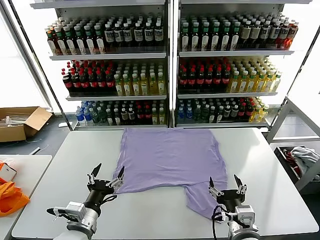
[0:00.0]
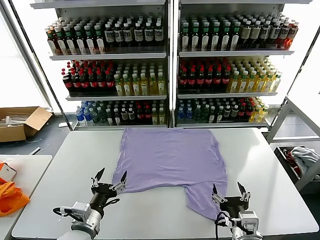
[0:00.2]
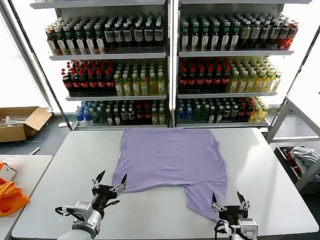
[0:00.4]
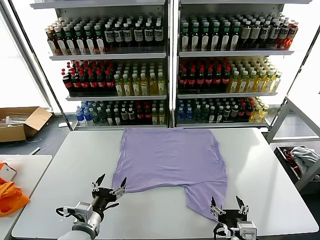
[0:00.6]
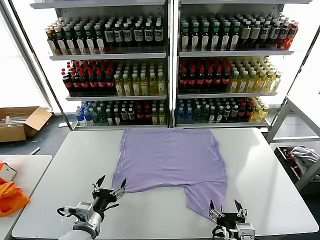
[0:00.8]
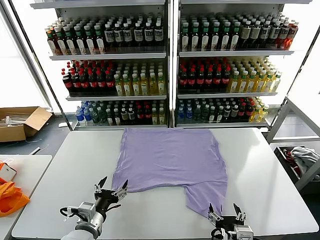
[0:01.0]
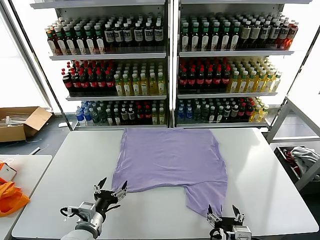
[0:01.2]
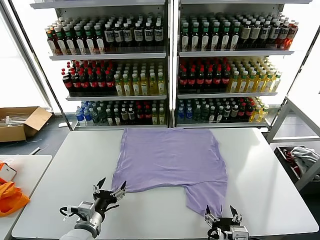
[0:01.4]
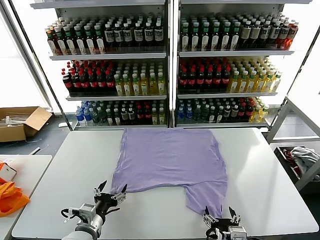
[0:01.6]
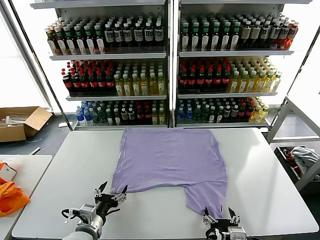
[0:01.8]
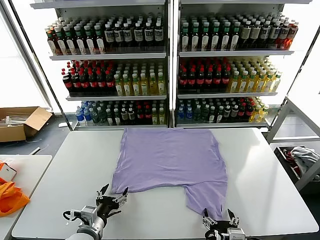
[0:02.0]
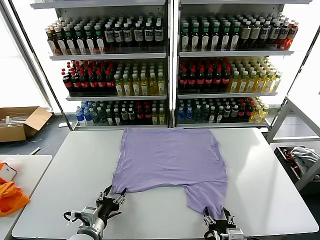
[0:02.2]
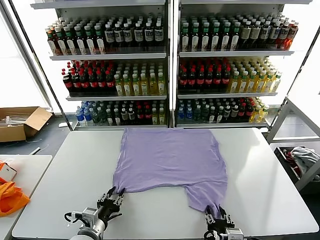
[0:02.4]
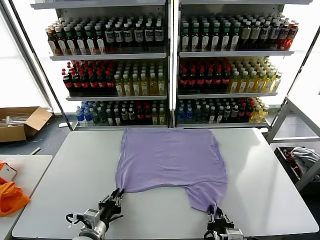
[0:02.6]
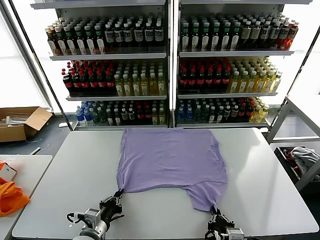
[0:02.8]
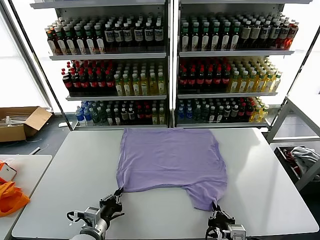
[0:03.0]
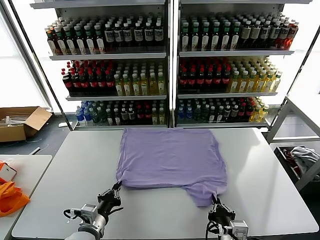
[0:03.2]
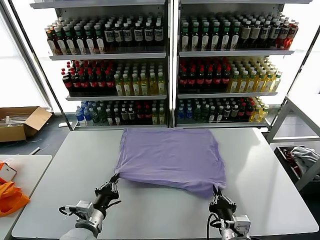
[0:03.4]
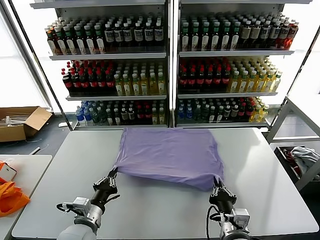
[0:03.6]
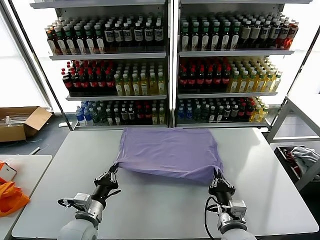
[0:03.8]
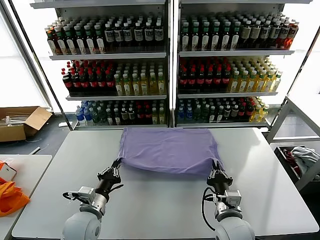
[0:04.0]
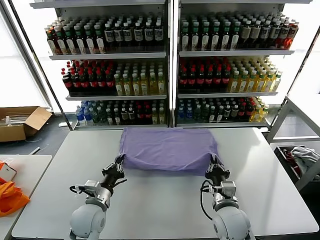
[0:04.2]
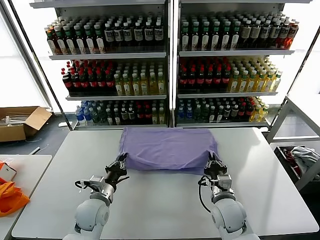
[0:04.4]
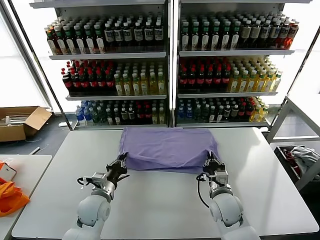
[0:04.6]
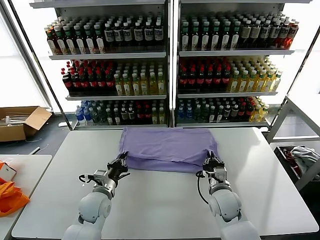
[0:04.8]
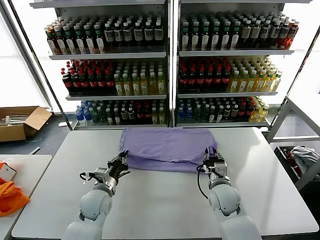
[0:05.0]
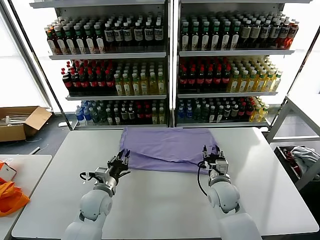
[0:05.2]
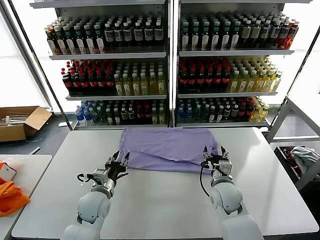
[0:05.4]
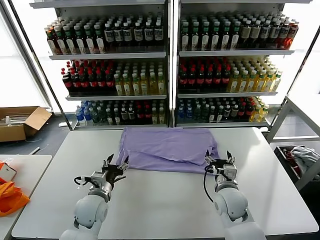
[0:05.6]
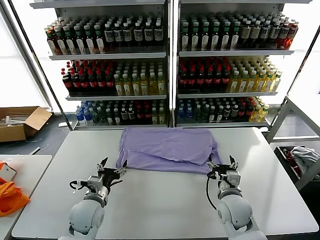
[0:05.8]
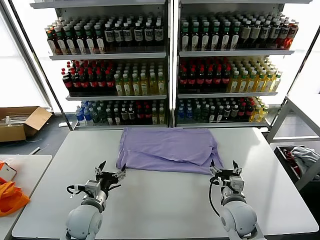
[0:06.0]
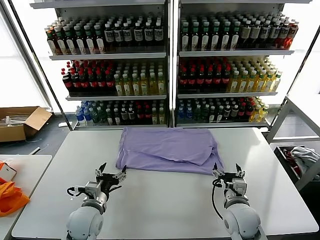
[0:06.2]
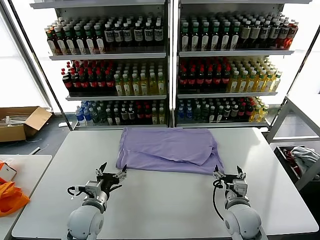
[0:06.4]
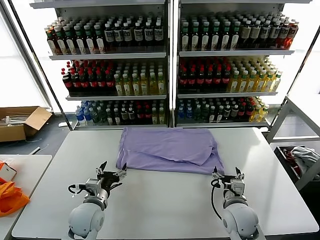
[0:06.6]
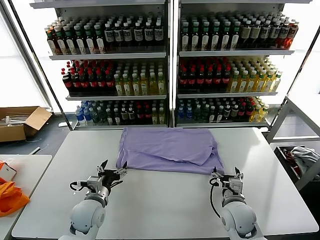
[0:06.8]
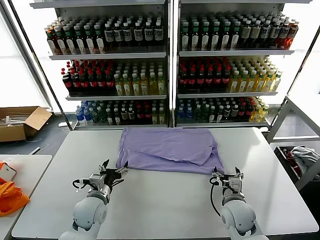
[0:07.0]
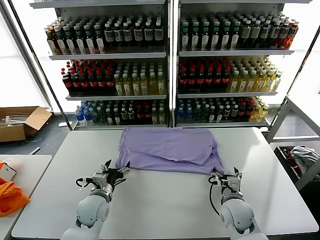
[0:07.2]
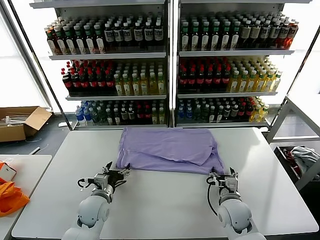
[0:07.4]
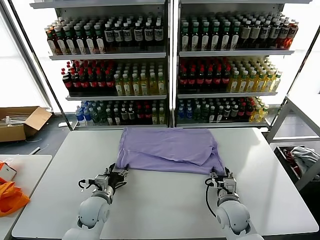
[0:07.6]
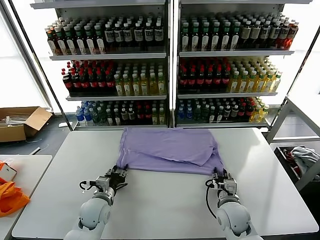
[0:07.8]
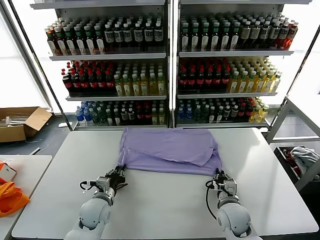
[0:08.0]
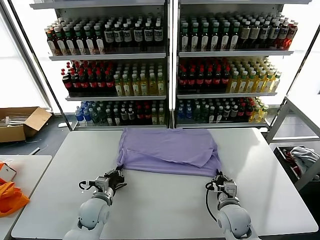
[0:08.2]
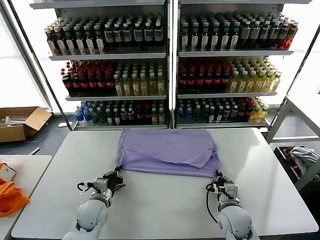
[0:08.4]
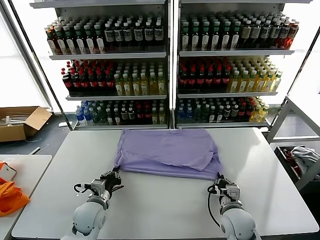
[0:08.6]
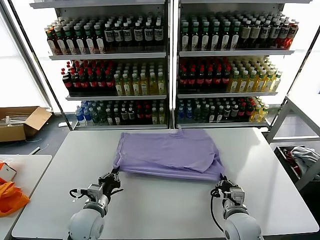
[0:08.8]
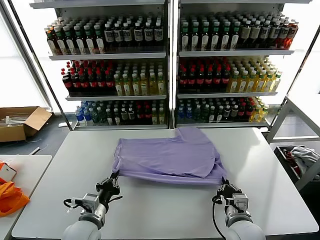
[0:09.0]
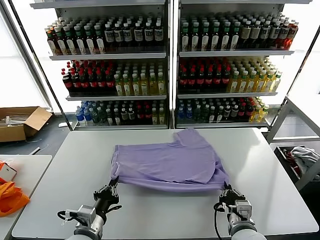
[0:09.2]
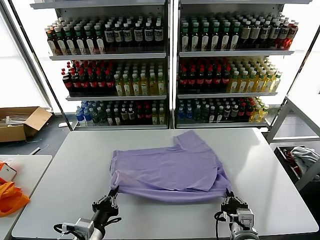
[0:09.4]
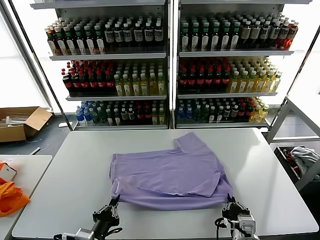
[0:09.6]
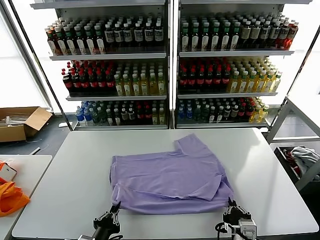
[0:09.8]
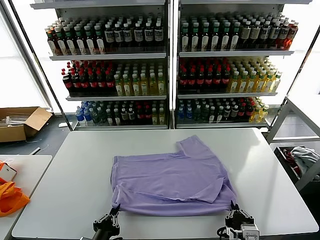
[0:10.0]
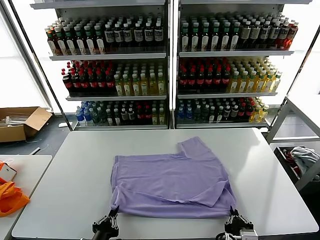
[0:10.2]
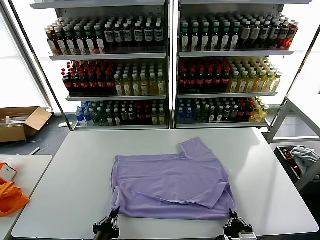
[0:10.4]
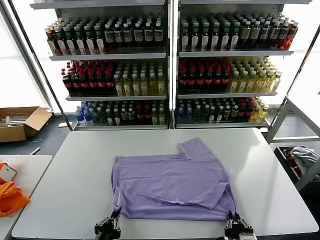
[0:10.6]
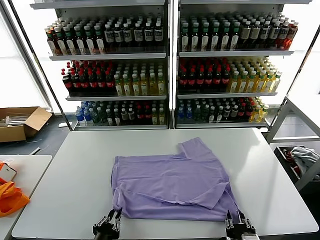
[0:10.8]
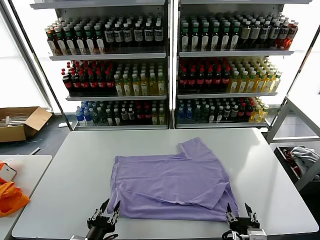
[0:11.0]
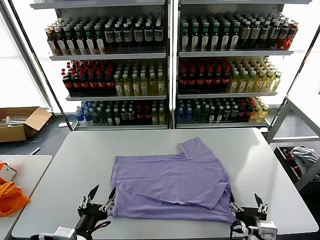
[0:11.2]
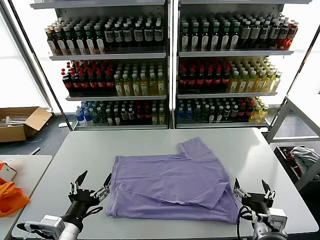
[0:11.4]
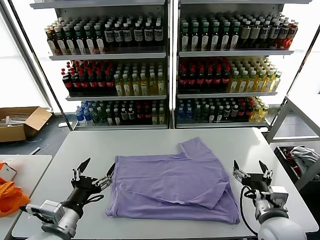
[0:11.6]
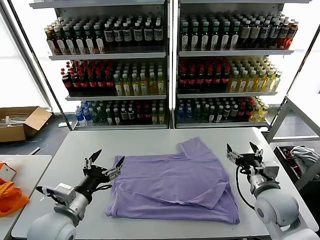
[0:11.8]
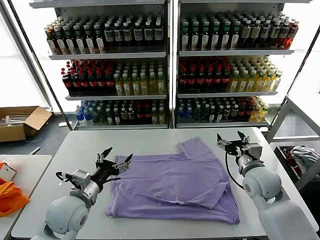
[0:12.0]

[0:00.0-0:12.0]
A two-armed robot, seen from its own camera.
Task of the whole recording: fold and organize the clothes.
Step, 0:00.0 to 0:03.0: use both grippers simultaneously to clamp the lower edge of the clothing fabric.
Step, 0:03.2 to 0:05.0: use both grippers to drag the lower edge of the fabric forward and fold it over the upper edge.
Step, 0:05.4 to 0:10.8: Drag the clothes downward with both gripper.
0:01.6 to 0:03.0: The right gripper closes its fingers; the left gripper closes its fingers.
0:03.0 to 0:04.4: The right gripper travels forward by approximately 15 cm; the left gripper is displaced forward by roughly 10 cm.
0:04.4 to 0:06.0: The right gripper opens its fingers, while the left gripper opens.
0:06.0 to 0:07.6: The left gripper moves some 5 cm, while the right gripper closes.
0:07.6 to 0:09.0: The right gripper goes about 10 cm backward, and closes up; the left gripper travels backward and upward by about 10 cm, and closes its fingers.
0:09.0 to 0:10.4: The two grippers go roughly 10 cm backward.
0:10.4 to 0:12.0: The left gripper goes roughly 20 cm forward and upward, and opens up. Meanwhile the right gripper shifts approximately 25 cm forward, and opens up.

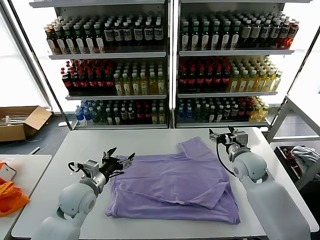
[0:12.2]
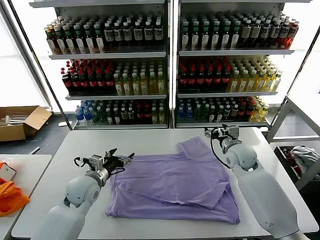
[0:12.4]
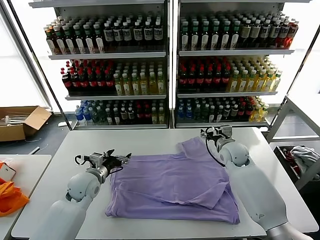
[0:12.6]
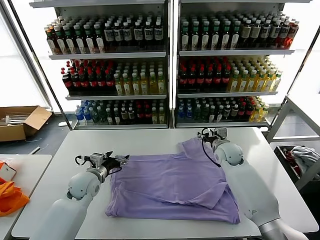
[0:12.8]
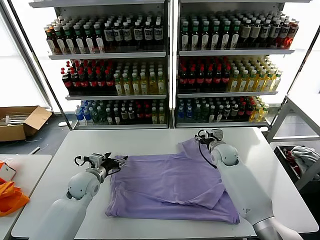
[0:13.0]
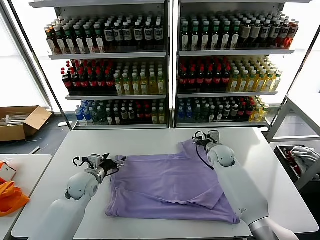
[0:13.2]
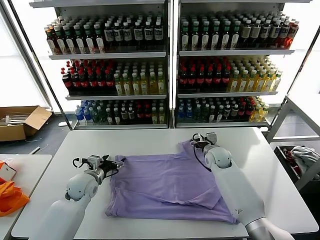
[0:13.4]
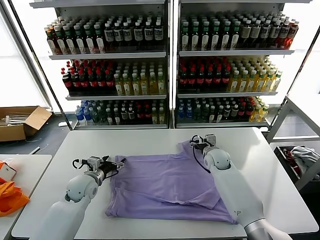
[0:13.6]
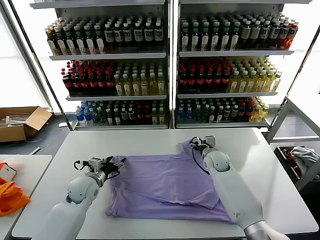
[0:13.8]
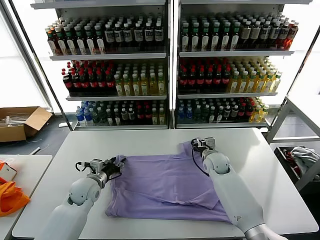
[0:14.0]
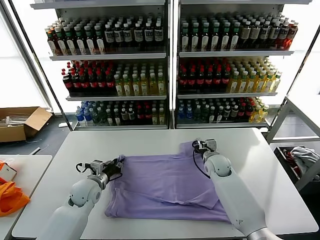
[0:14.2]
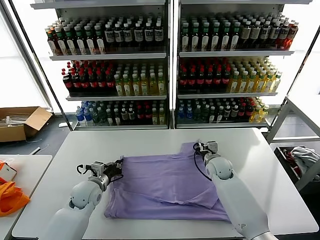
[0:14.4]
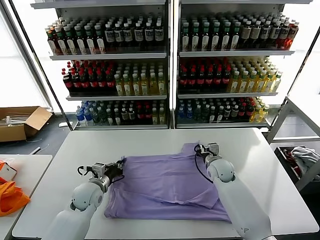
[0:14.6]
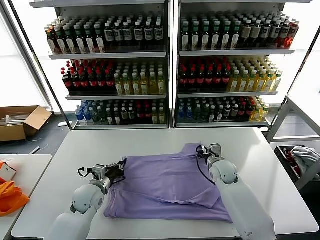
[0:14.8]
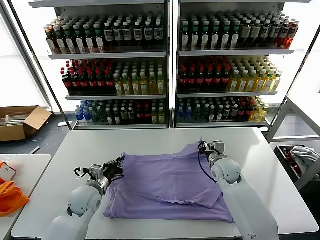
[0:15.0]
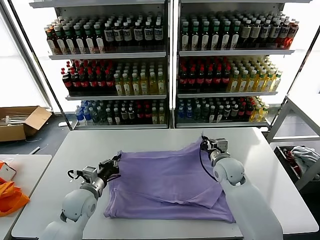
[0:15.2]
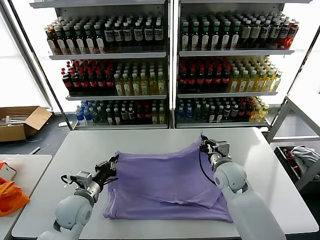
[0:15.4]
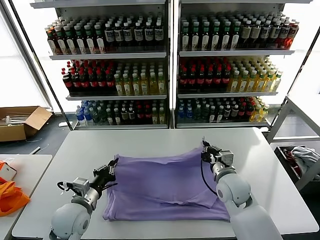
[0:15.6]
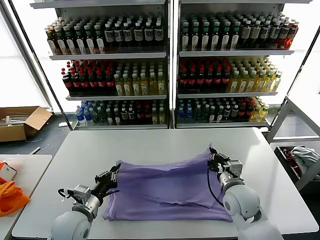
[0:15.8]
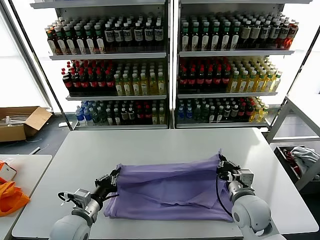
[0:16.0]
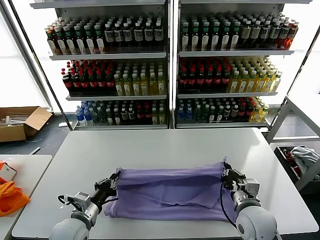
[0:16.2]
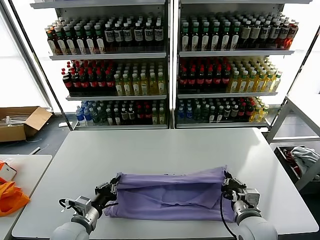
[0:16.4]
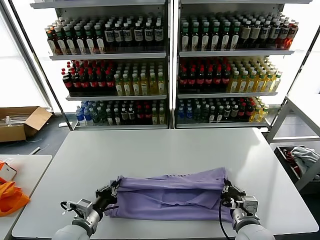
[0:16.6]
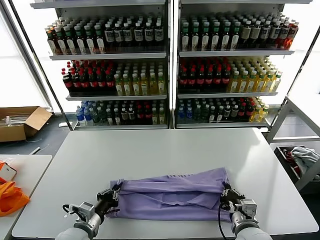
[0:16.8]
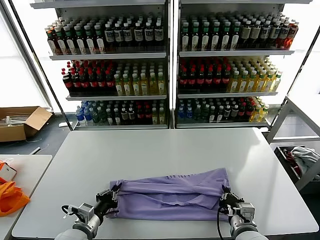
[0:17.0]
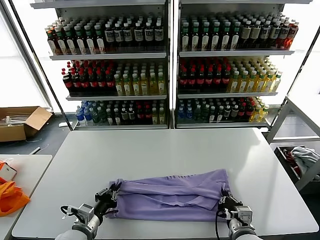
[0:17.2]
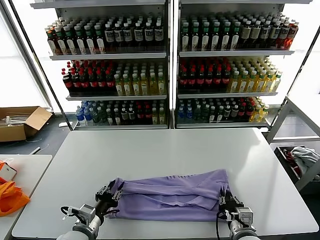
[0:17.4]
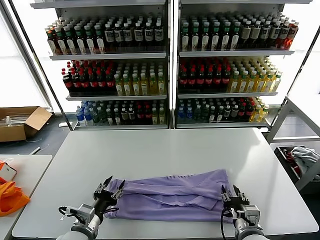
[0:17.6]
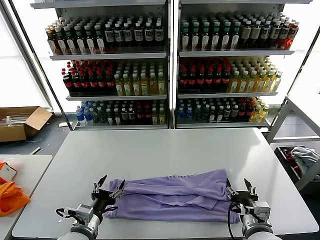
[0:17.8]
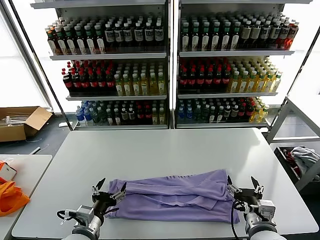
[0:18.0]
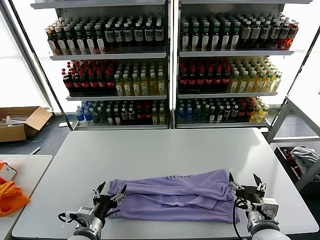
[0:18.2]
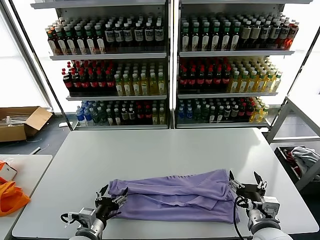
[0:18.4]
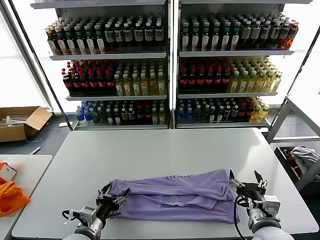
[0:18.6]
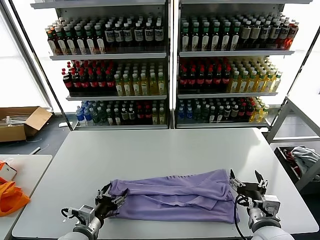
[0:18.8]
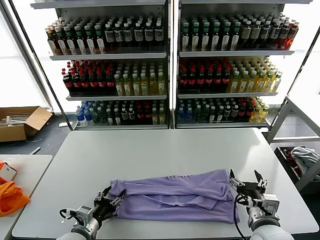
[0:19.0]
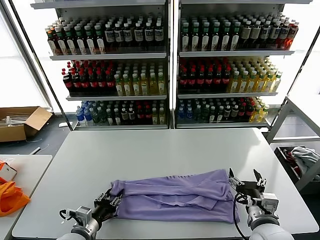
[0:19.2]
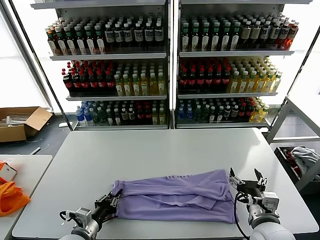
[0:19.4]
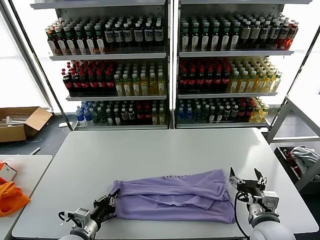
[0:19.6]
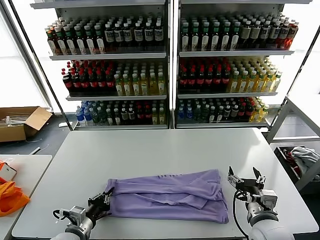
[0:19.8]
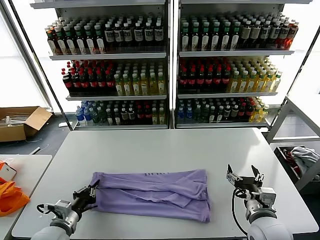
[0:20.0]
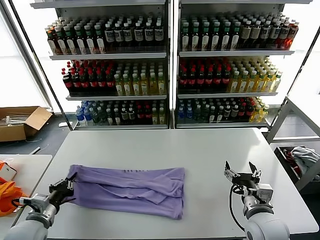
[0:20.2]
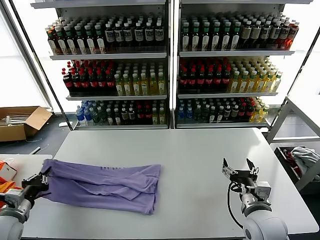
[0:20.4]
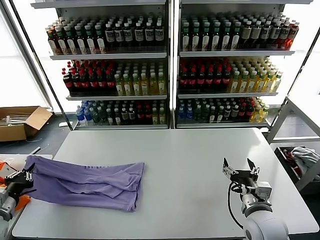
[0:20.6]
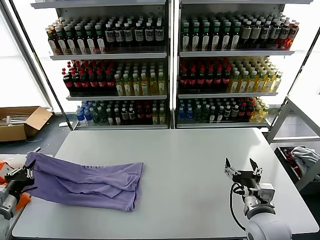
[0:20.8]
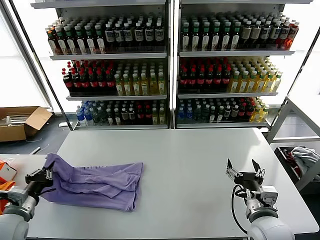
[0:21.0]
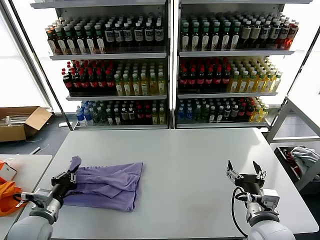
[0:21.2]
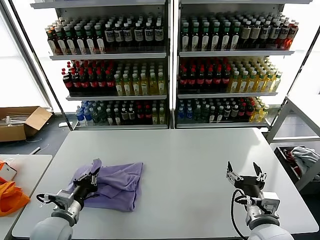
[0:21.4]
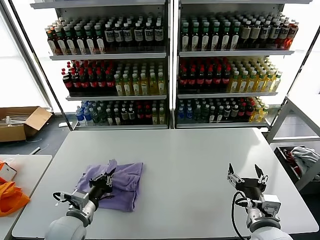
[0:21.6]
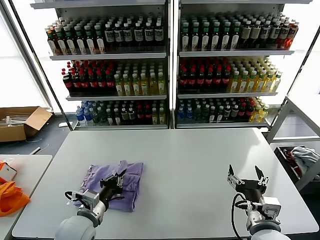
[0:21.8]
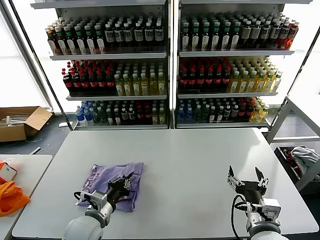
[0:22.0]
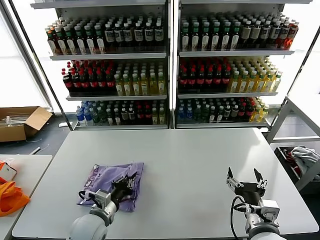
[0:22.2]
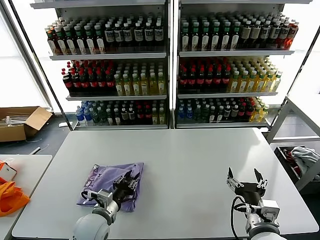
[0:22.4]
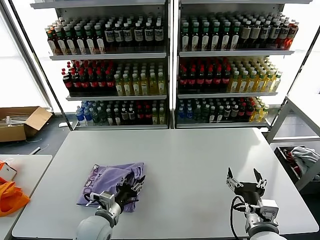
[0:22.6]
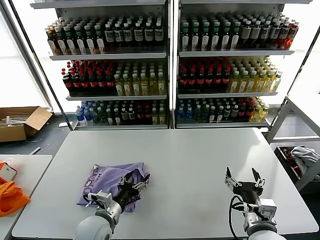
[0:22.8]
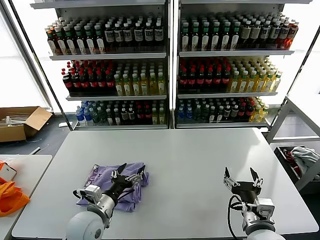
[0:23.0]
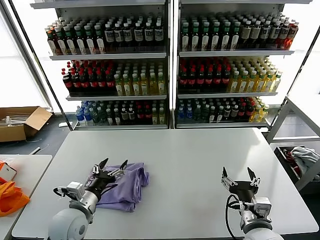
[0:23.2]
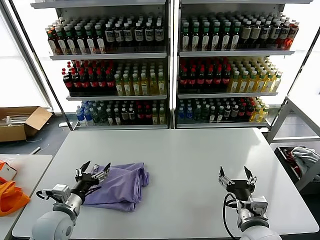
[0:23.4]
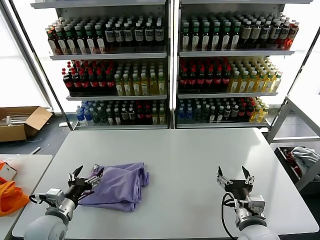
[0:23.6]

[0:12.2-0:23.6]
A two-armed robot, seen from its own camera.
Task of the whole recording: fold and organize the clothes.
Step, 0:12.2 to 0:14.6: use both grippers simultaneously to clamp the upper edge of the clothing fabric.
Step, 0:14.8 to 0:17.6: use both grippers to drag the upper edge of the fabric backward and fold it over the lower edge.
Step, 0:17.8 to 0:19.4: use the left gripper to clamp the left edge of the fabric.
Step, 0:19.8 to 0:22.8: use the left gripper to drag the left edge of the fabric to the left and folds it over the right edge.
0:12.2 to 0:13.6: The left gripper heads forward and downward, covering approximately 10 cm, while the right gripper is displaced downward, forward and to the left by approximately 15 cm.
0:13.6 to 0:15.0: The left gripper shifts by roughly 5 cm, and closes; the right gripper moves backward, approximately 5 cm, and closes up.
0:15.0 to 0:16.4: The left gripper goes some 10 cm backward. The right gripper goes some 20 cm backward.
0:16.4 to 0:17.8: The right gripper opens its fingers, while the left gripper opens up.
0:17.8 to 0:19.4: The left gripper closes its fingers.
0:19.4 to 0:20.8: The left gripper moves to the left and upward, about 25 cm.
0:20.8 to 0:22.2: The left gripper heads to the right, covering some 25 cm.
0:22.2 to 0:23.6: The left gripper is displaced to the left by roughly 10 cm, and opens.
